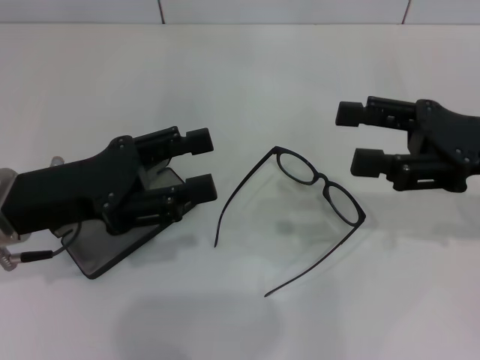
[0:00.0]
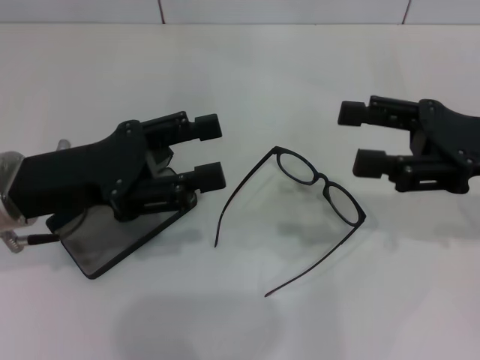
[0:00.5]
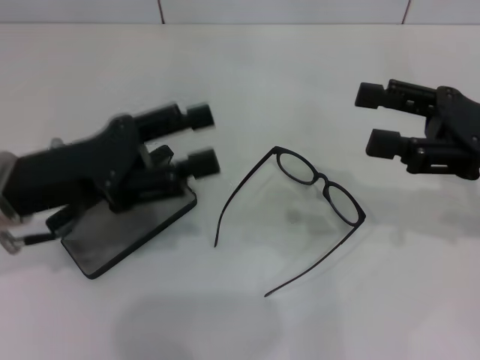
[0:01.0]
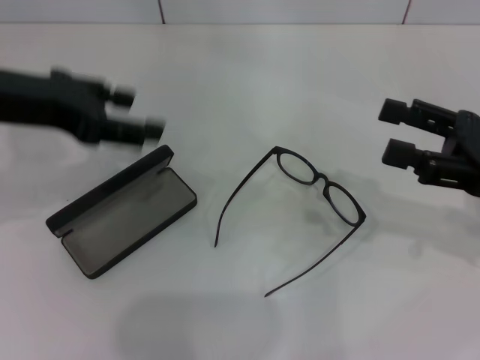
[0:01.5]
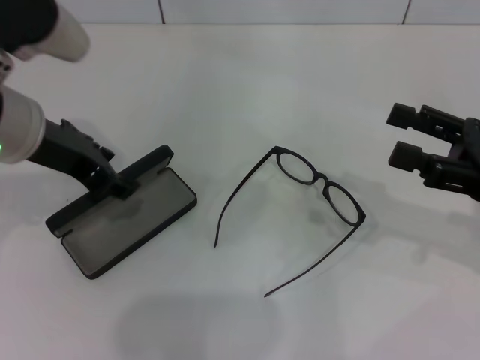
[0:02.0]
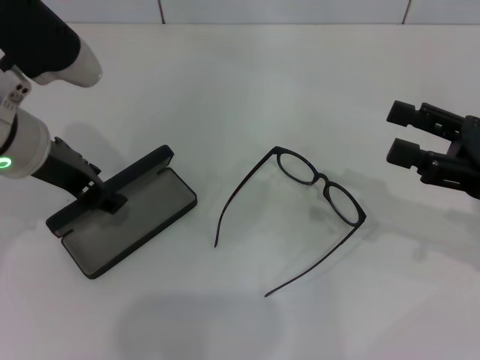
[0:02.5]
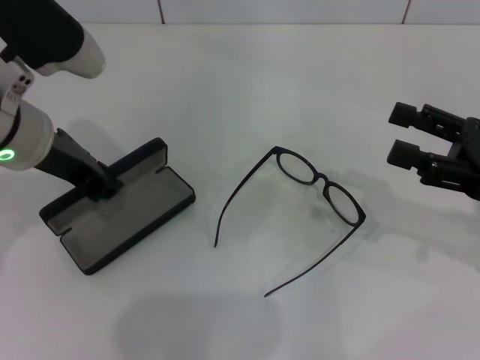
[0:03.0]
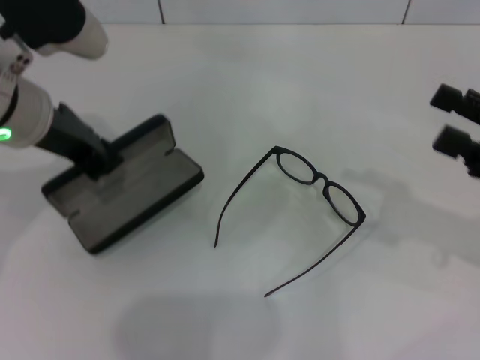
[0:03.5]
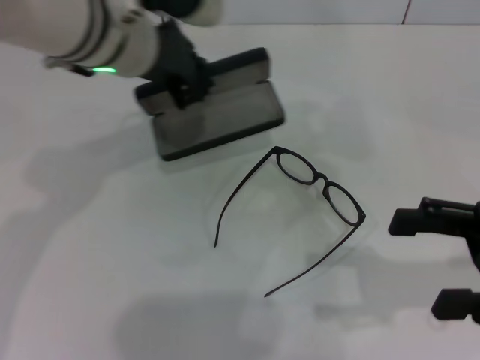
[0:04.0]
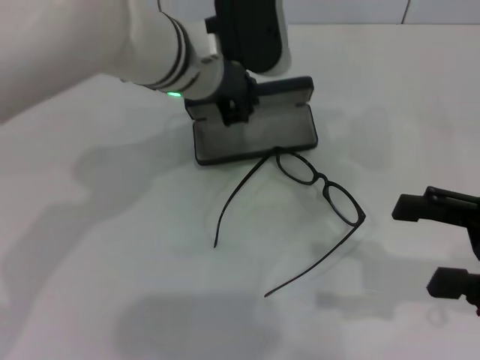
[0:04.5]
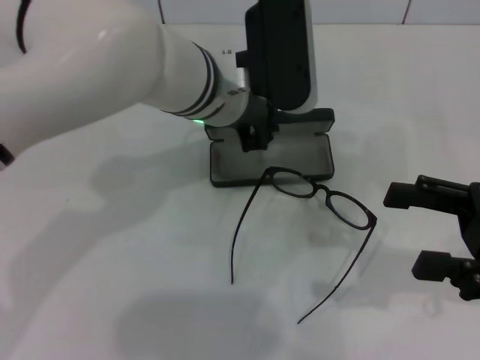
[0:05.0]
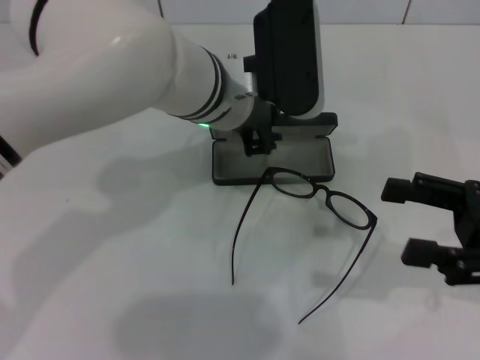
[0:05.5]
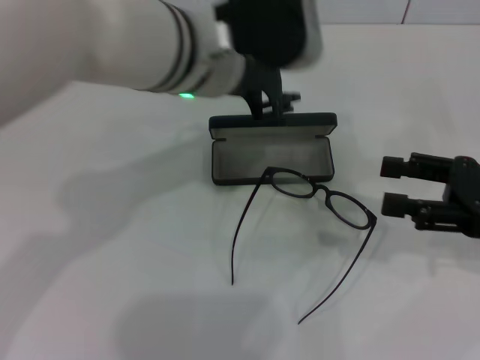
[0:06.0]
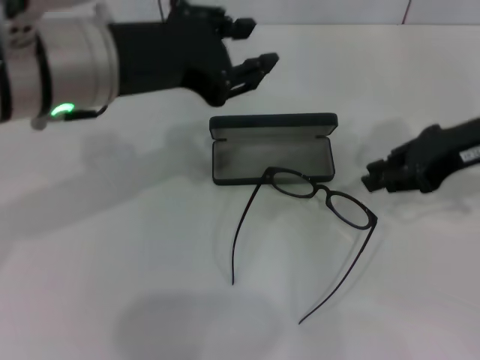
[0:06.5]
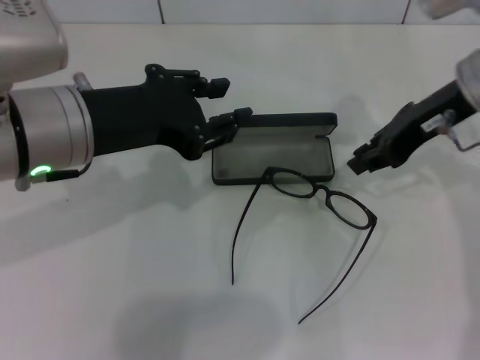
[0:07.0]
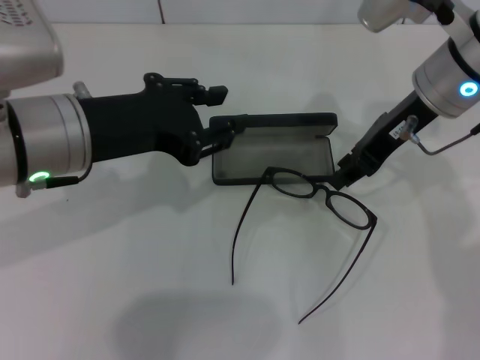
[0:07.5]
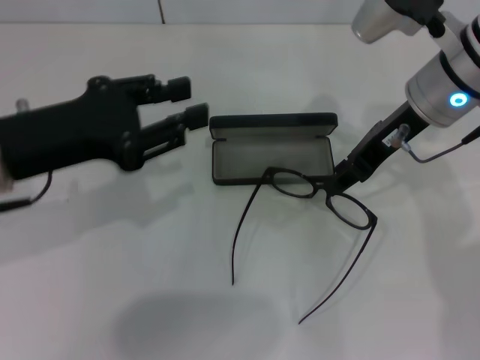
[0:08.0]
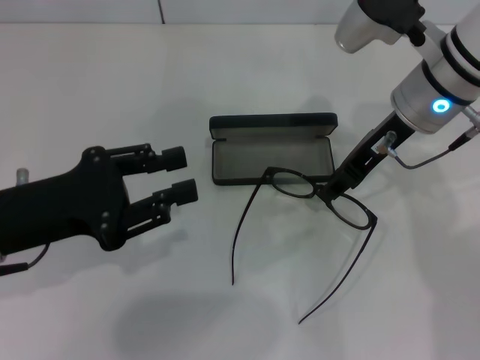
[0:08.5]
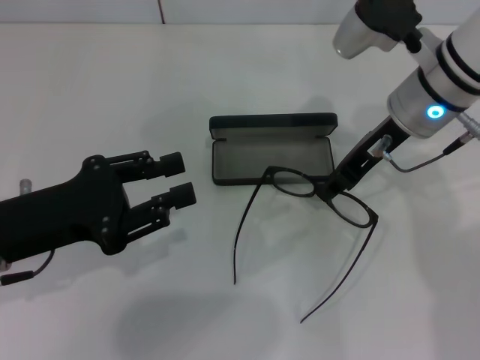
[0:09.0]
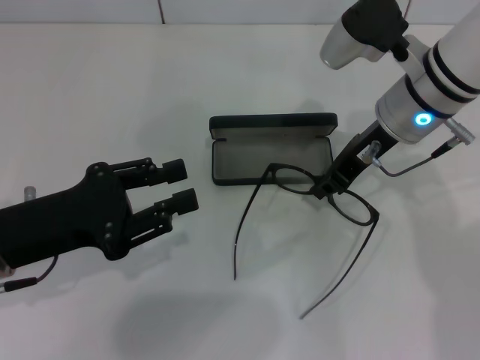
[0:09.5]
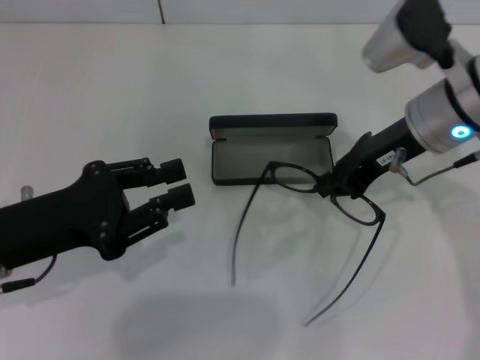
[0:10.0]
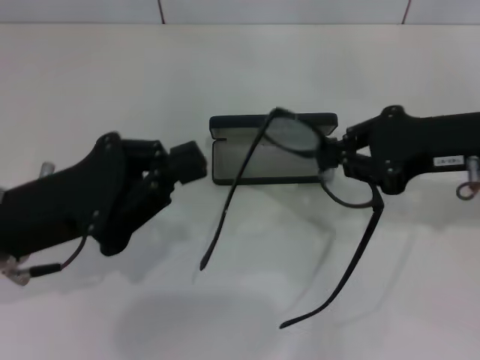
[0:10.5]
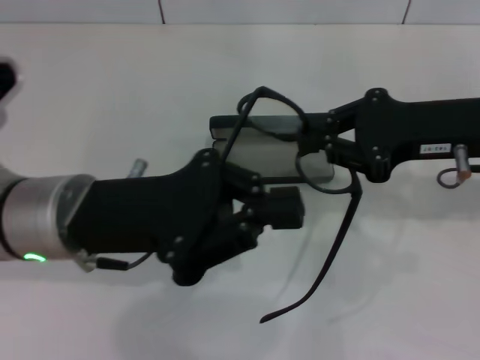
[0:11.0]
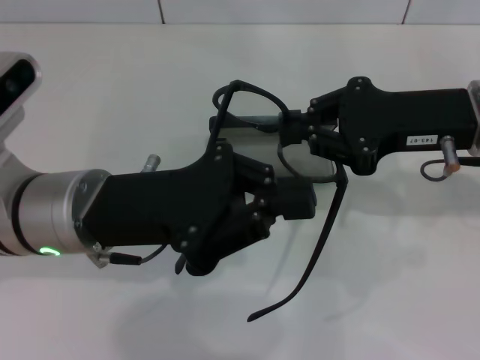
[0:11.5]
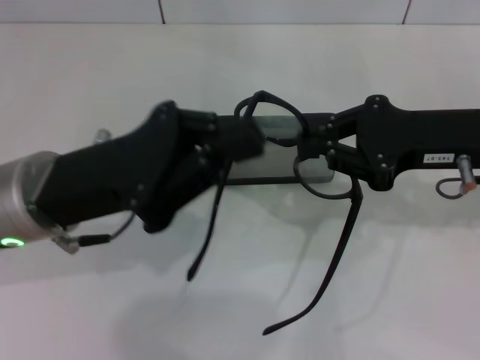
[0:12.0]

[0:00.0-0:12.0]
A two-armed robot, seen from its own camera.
Step, 0:00.0 to 0:03.0: Grab the glasses case with your left hand.
Step, 0:03.5 to 0:05.5: Place the glasses case in the center of the table with your left hand.
Step, 0:06.0 to 0:09.5: Grab the eyeglass frame with your right hand.
0:00.0 to 0:02.0: The left gripper heads upward and forward, covering approximately 10 cm. Meanwhile the right gripper shifts by approximately 5 cm.
0:02.0 to 0:04.0: The left gripper moves to the right and forward, some 10 cm, and closes.
0:04.0 to 0:06.0: The left gripper travels to the right by about 5 cm.
0:06.0 to 0:08.0: The right gripper moves to the left, forward and upward, approximately 20 cm, and closes its fingers. The left gripper travels to the left and backward by roughly 20 cm.
0:08.0 to 0:10.0: The right gripper closes, while the left gripper heads downward, covering some 5 cm.
0:10.0 to 0:12.0: Both grippers travel together to the right, approximately 5 cm. The left gripper closes its fingers.

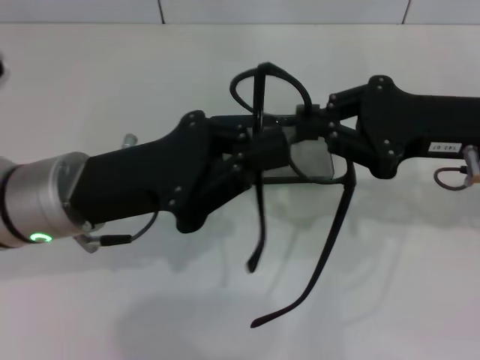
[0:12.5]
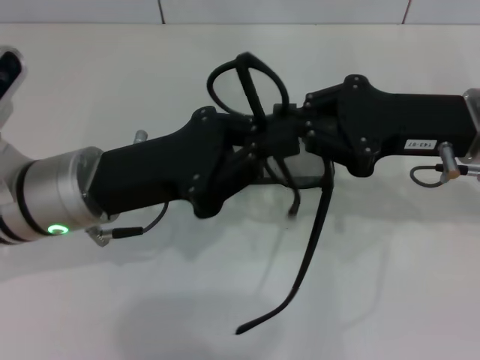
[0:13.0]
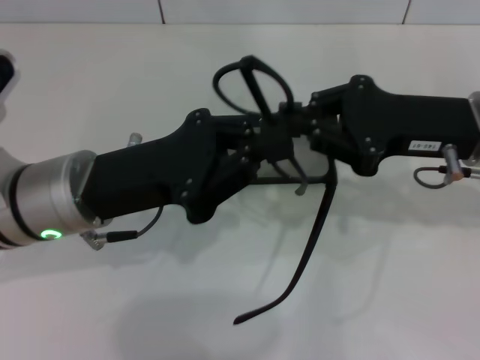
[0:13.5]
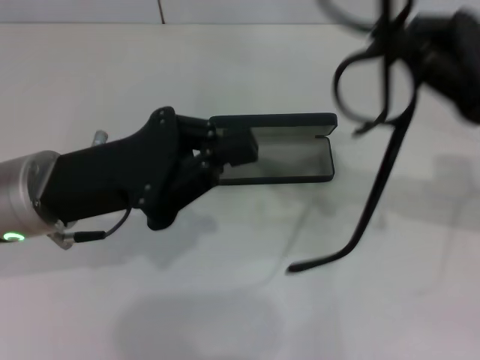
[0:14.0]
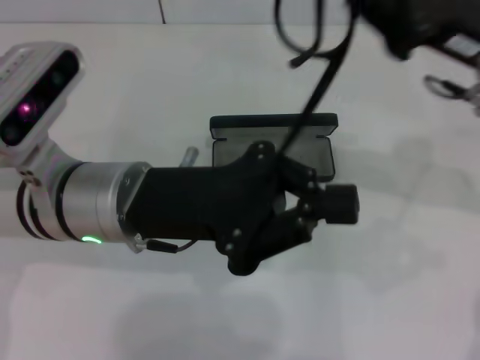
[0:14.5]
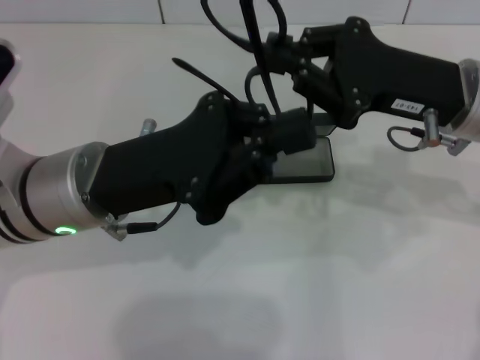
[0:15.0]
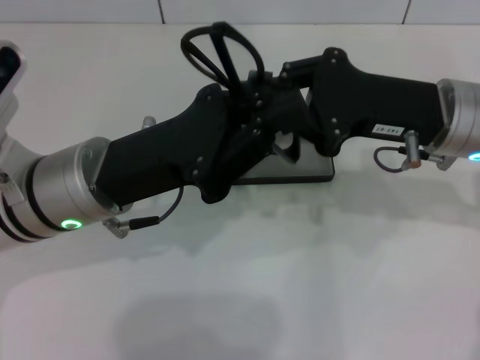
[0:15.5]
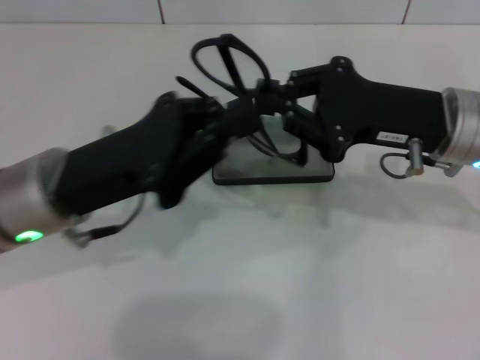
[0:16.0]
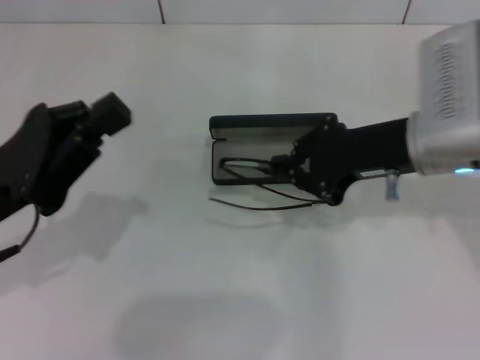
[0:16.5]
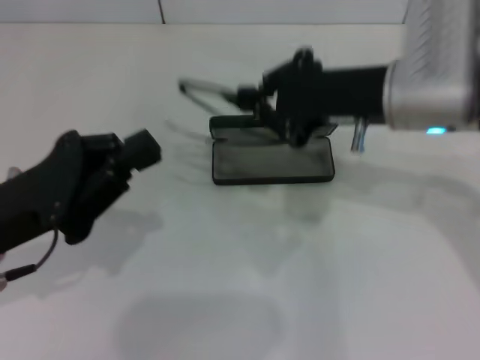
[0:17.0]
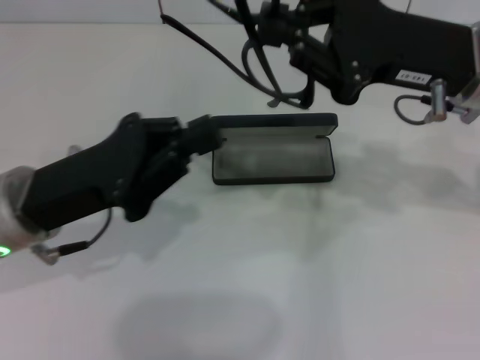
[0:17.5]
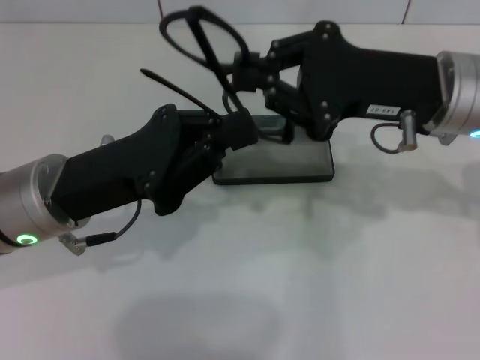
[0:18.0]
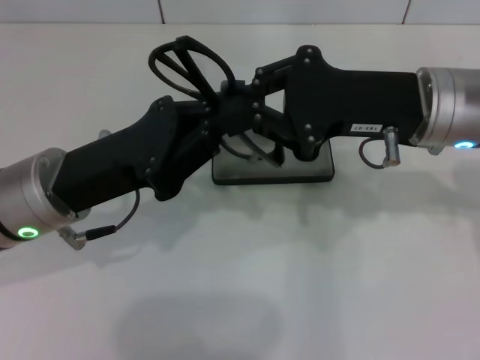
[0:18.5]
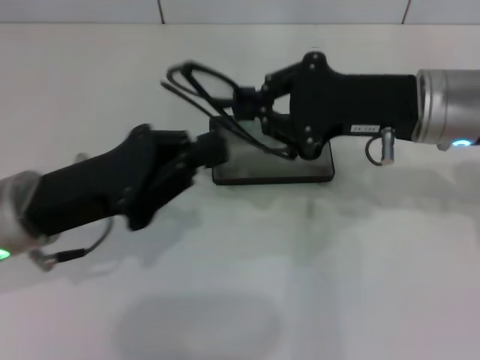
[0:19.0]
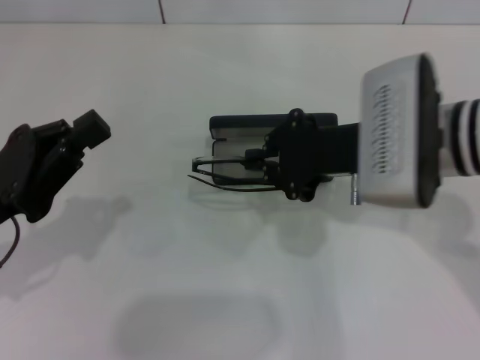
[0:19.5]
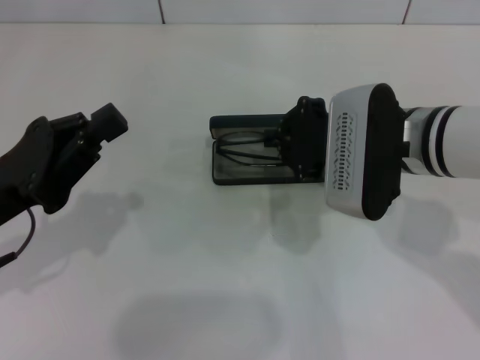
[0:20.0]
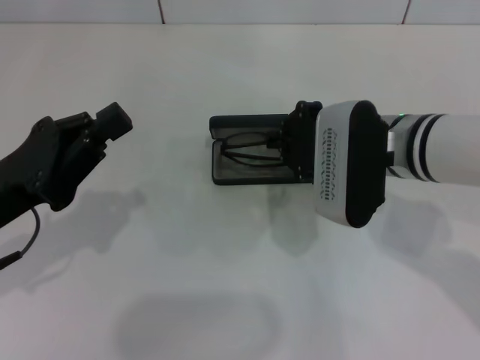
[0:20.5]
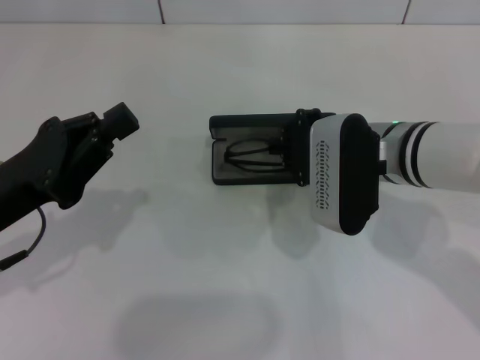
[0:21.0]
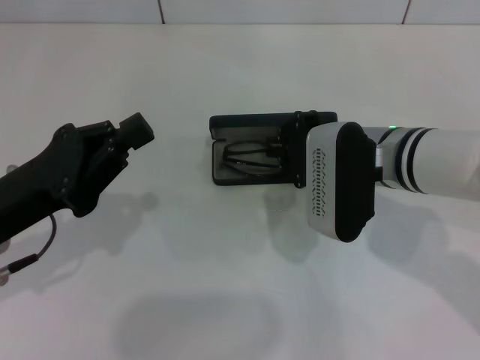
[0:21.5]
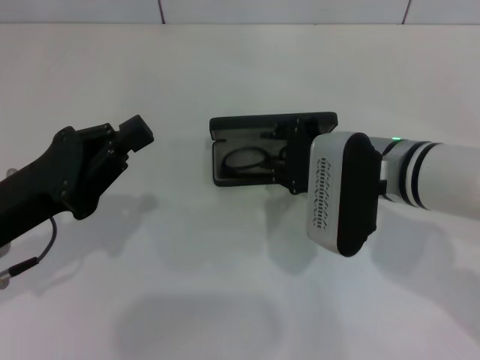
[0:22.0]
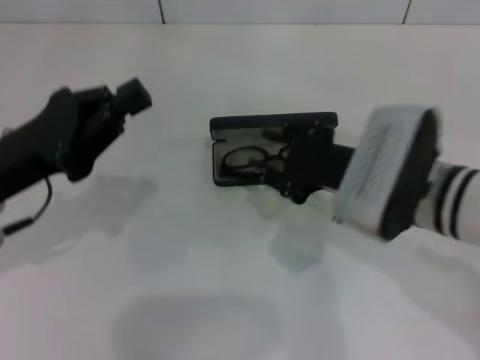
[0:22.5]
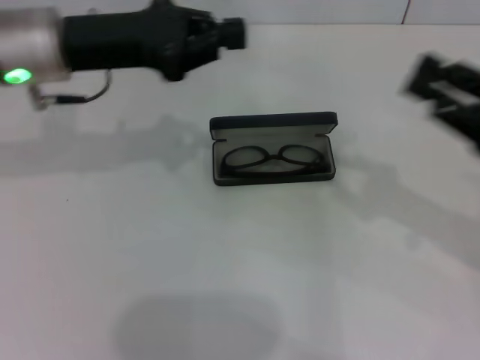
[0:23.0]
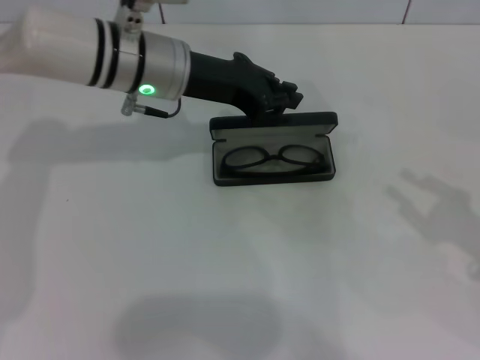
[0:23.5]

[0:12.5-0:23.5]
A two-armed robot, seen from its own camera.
Step, 0:12.5 to 0:18.5: Lift the glasses with your right hand.
Step, 0:19.0 to 0:22.0: Put the glasses into the case with your right hand.
0:14.5 to 0:16.0: The right gripper ends up approximately 5 cm from where it was, while the left gripper ends up roughly 5 cm from where it was.
0:16.0 to 0:18.0: The left gripper reaches some 10 cm to the left, then returns.
0:18.0 to 0:20.0: The right gripper changes place by some 5 cm. Meanwhile the left gripper is displaced to the left by approximately 10 cm.
0:20.0 to 0:21.5: The grippers stay close to where they were, moving slightly.
0:21.5 to 0:23.5: The right gripper moves to the right and backward, some 25 cm, and opens up. The left gripper is displaced forward and to the right by about 20 cm.

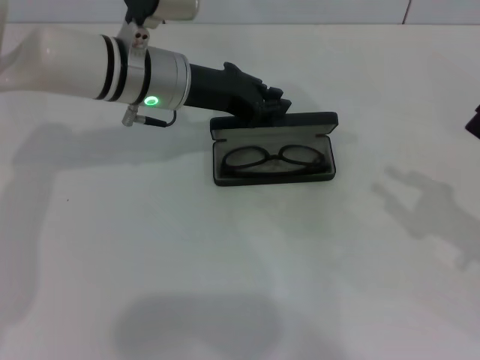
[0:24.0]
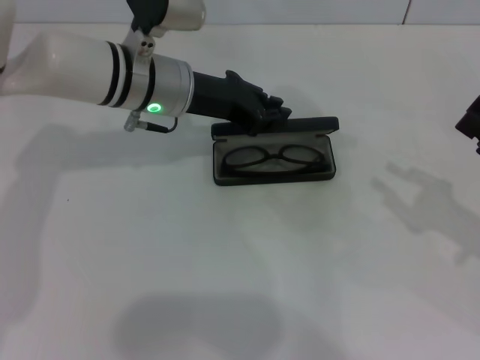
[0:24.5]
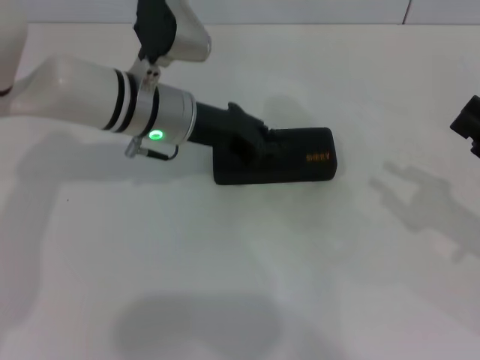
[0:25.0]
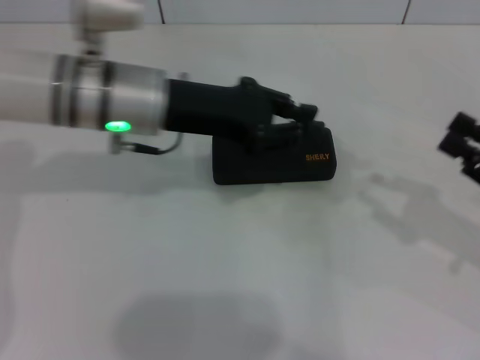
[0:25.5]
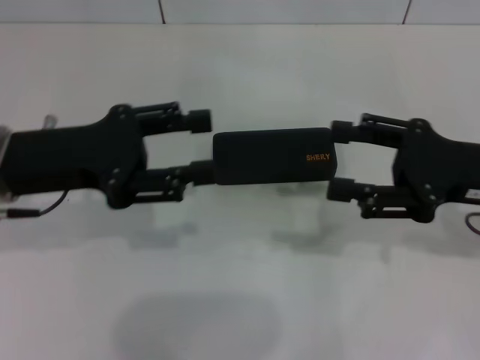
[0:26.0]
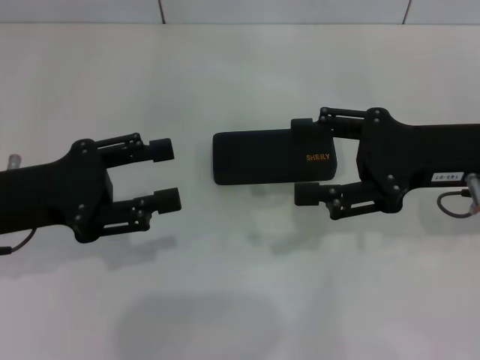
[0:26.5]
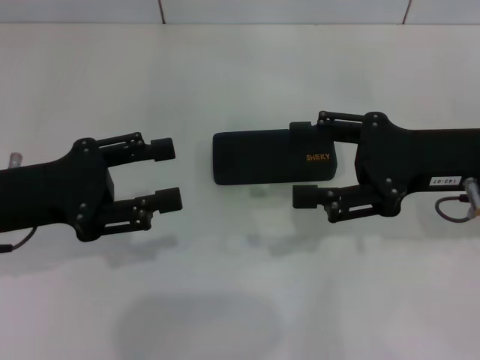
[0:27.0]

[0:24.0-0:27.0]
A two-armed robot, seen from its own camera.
0:24.0 to 0:25.5: The left gripper goes about 5 cm backward.
0:25.5 to 0:27.0: The right gripper travels to the left, forward and upward by roughly 15 cm, and opens, while the left gripper moves to the left and backward, some 15 cm, and opens.
